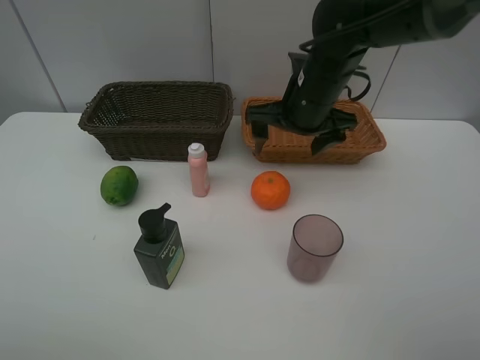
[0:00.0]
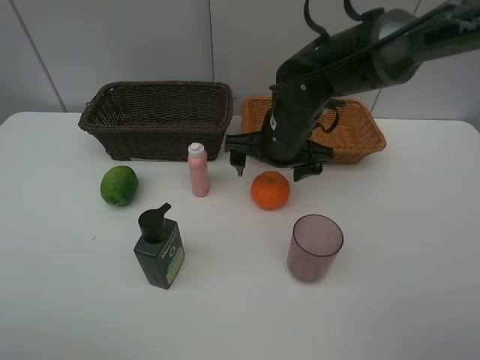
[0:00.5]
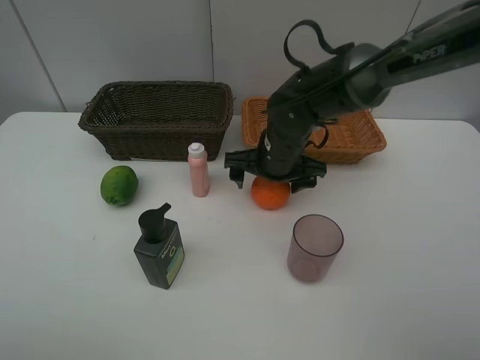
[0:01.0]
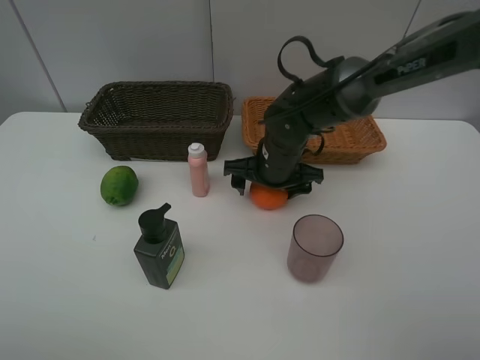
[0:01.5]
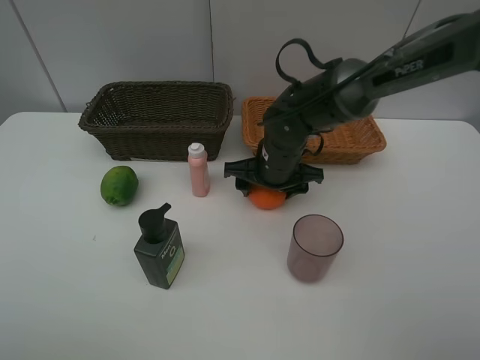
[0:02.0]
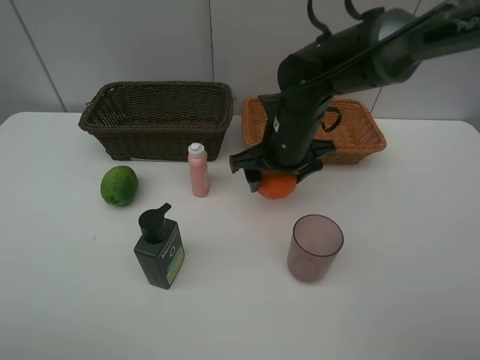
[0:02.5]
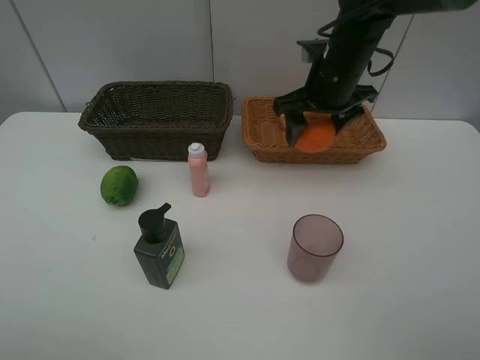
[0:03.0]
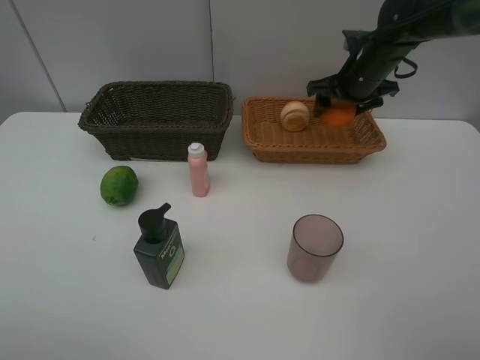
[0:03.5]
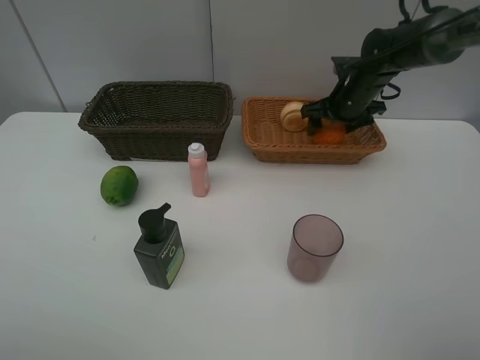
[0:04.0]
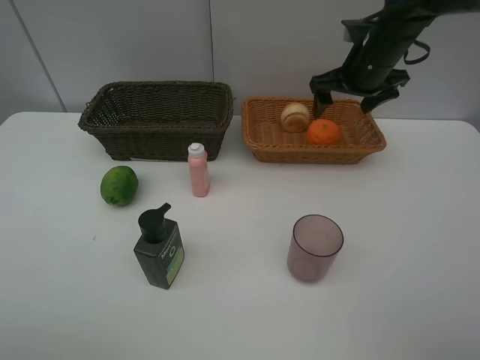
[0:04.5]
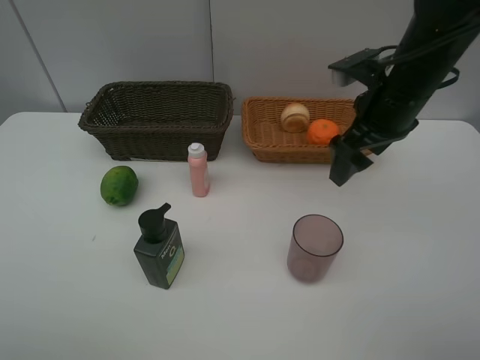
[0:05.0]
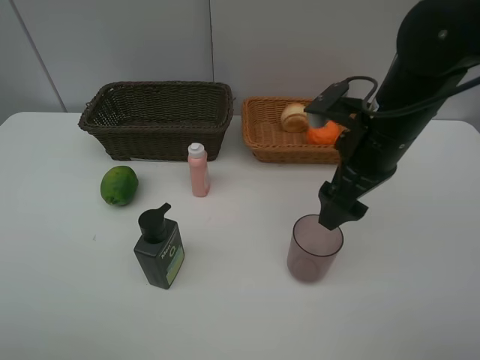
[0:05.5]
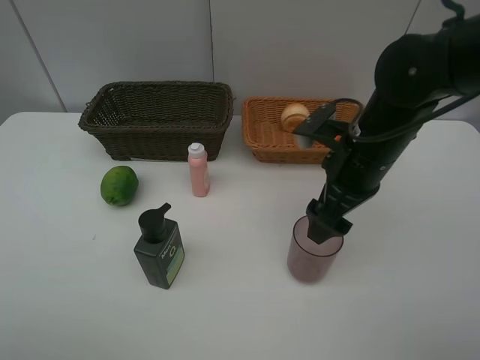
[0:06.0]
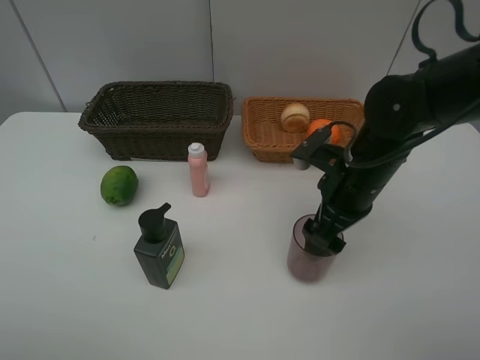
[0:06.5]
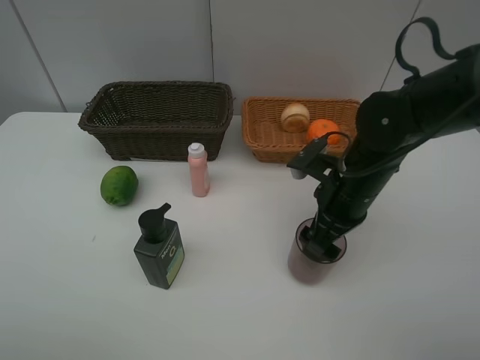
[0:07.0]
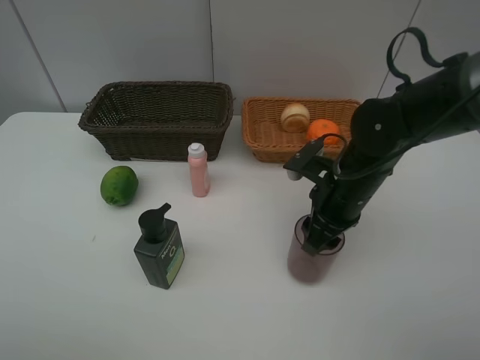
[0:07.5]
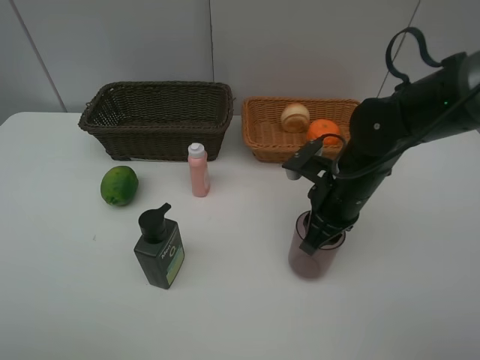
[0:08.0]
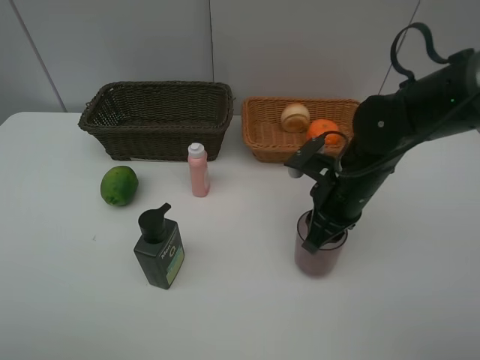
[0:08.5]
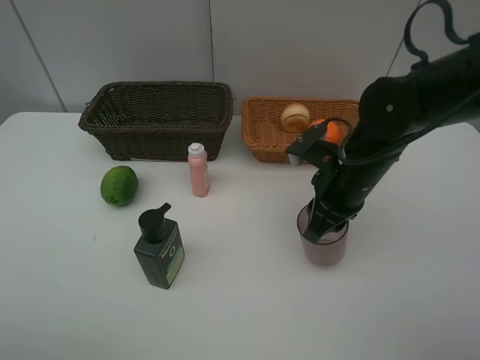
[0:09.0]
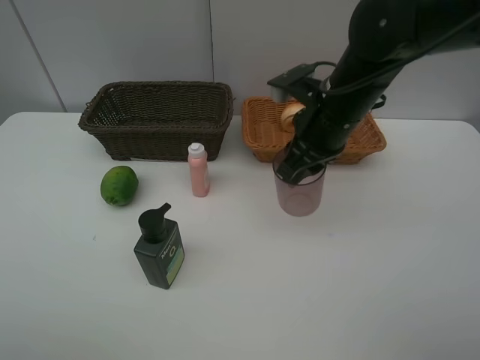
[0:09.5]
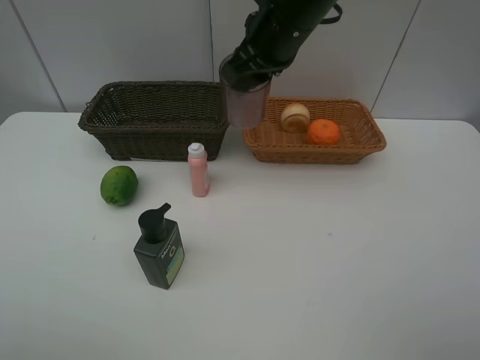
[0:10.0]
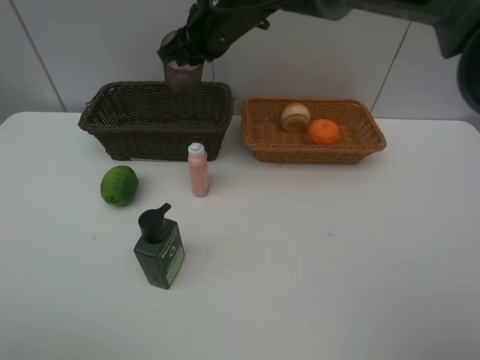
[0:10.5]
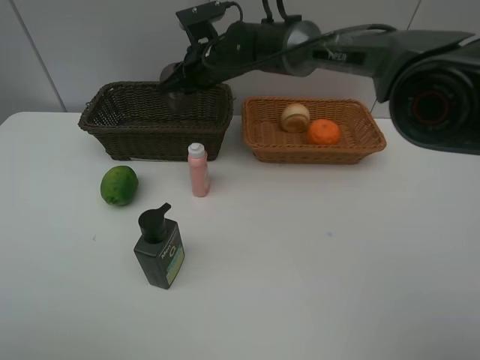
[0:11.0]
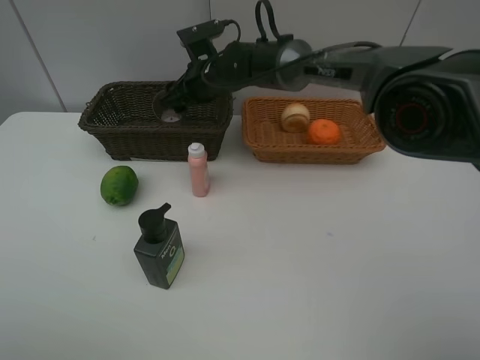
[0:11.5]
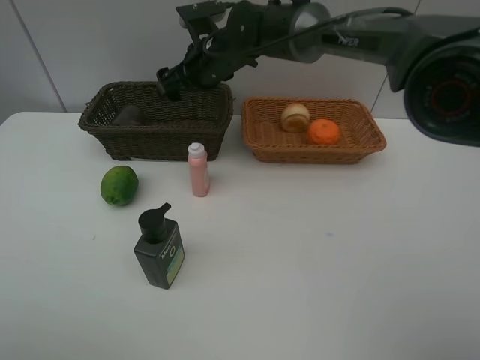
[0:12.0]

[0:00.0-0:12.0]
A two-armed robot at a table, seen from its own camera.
Task of the whole recording: place multiple objects separately in different baskets.
0.0 to 2.0 s: The right gripper goes some 10 cm downward.
2.0 to 4.0 s: The right gripper moves to the right and forward, some 20 cm.
4.0 to 6.0 s: The right gripper shifts about 20 cm backward.
6.0 to 8.0 s: The right gripper is displaced downward by about 5 cm, and closes its fingers.
8.0 to 10.0 s: The right gripper travels upward, forward and to the left by roughly 20 cm.
10.0 to 12.0 s: The right gripper heads downward, to the left and forward, covering approximately 15 cm, and opens up.

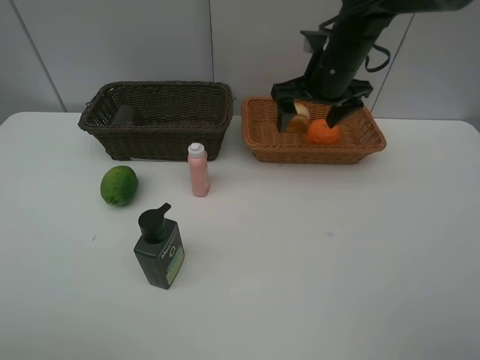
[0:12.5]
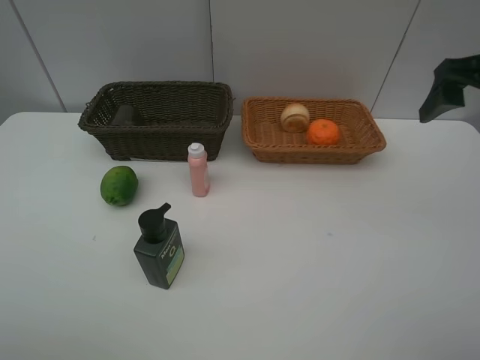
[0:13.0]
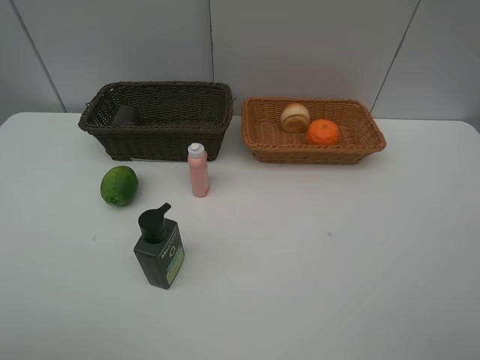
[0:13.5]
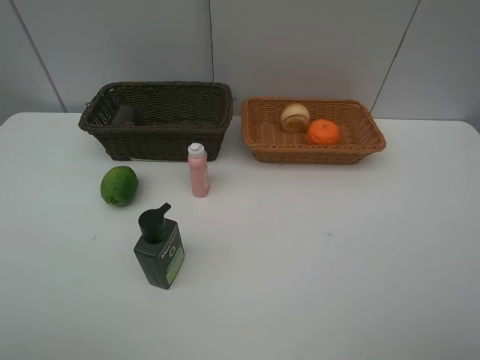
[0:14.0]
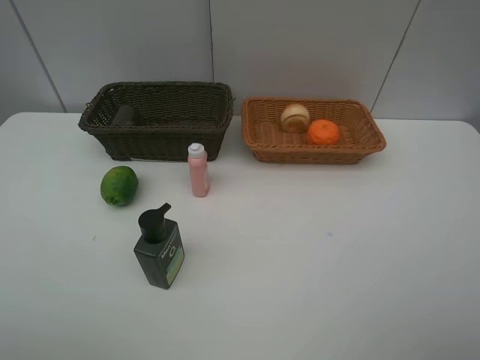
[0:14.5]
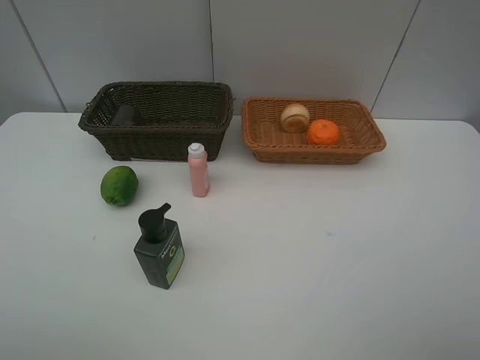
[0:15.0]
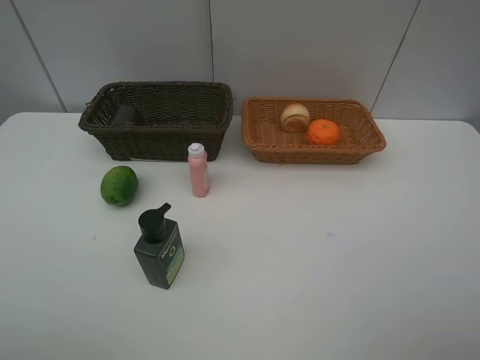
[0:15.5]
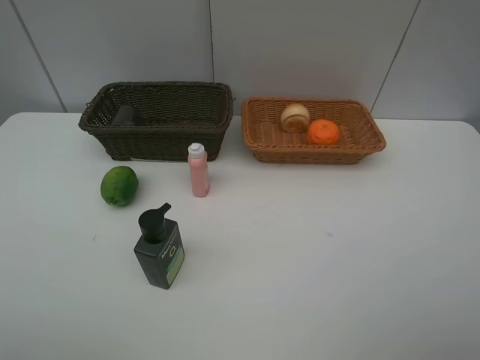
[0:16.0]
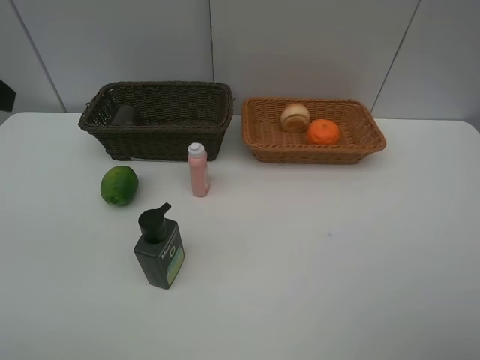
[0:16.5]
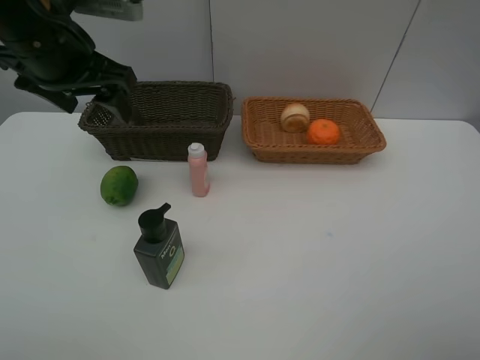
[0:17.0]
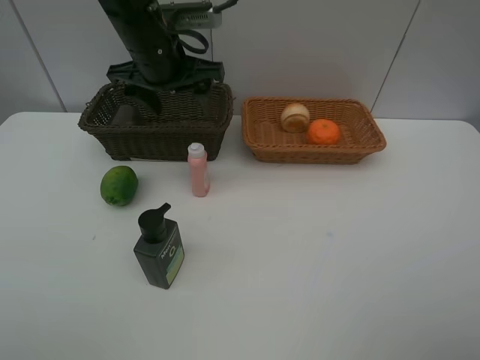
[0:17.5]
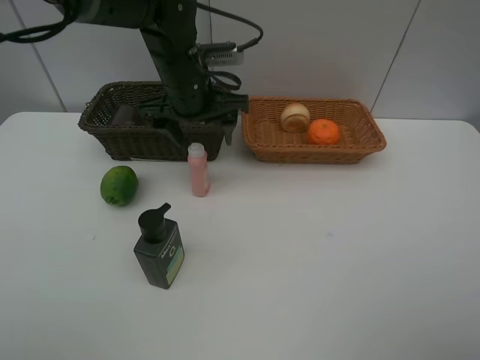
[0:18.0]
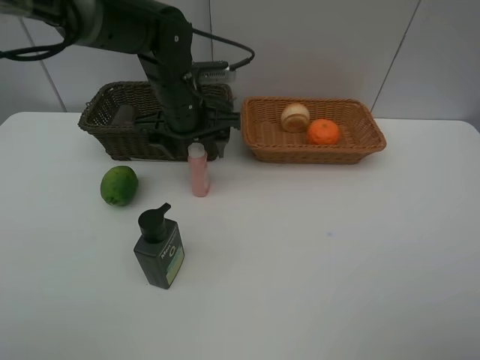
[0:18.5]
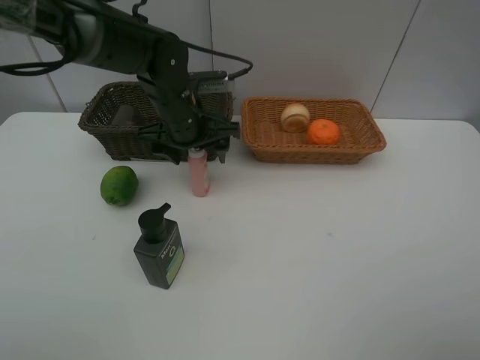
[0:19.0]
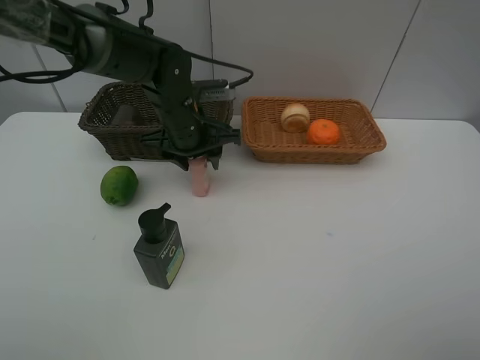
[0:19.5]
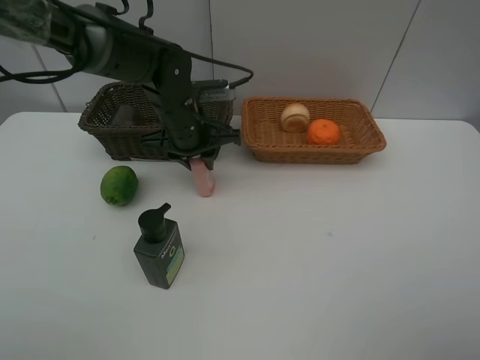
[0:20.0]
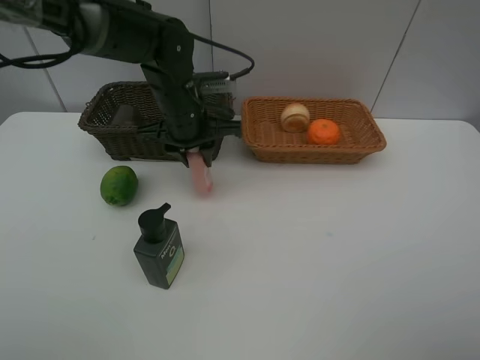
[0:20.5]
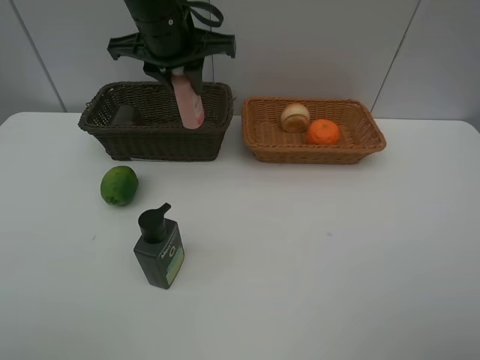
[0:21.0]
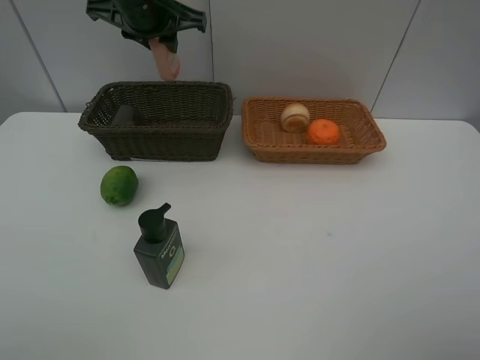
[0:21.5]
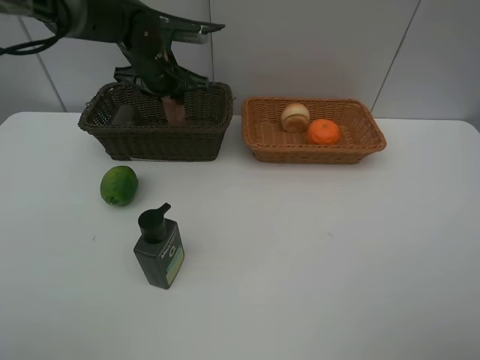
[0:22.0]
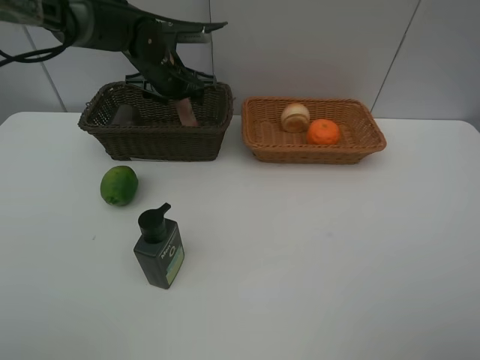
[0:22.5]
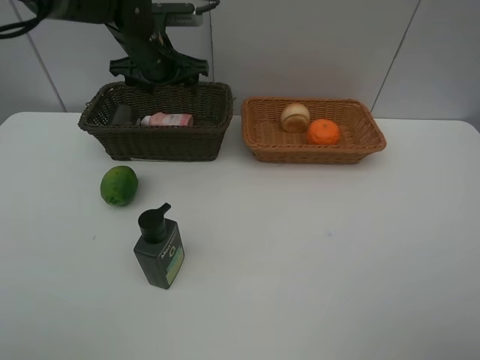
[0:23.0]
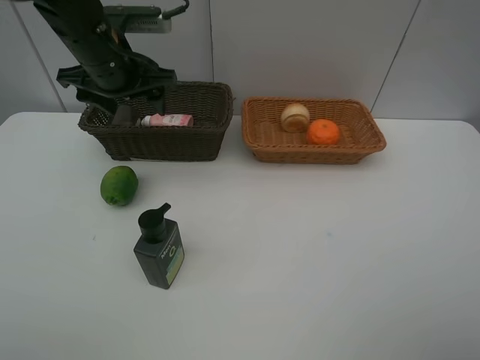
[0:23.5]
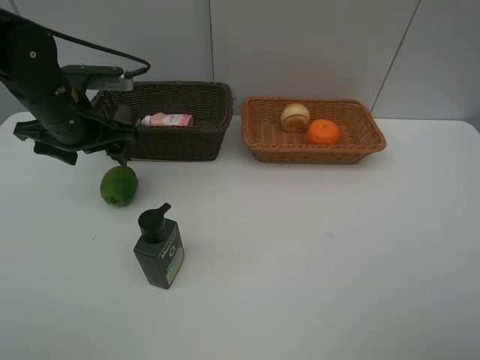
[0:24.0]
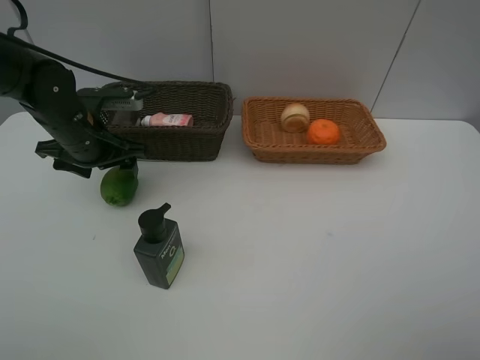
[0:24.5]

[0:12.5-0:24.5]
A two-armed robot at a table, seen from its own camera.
Task of the whole recording: place multiple objects separately in different baskets.
12.5 to 14.5 s: The right gripper shifts roughly 40 cm backward.
16.5 to 18.5 s: The left gripper moves to the right, forward and downward, about 30 cm.
18.5 to 20.5 s: The left gripper closes its fingers.
20.5 to 22.5 s: The left gripper goes approximately 10 cm forward, travels upward and back again, about 10 cm each way, and opens its fingers.
22.5 to 24.5 s: The left gripper goes roughly 15 cm backward and to the left.

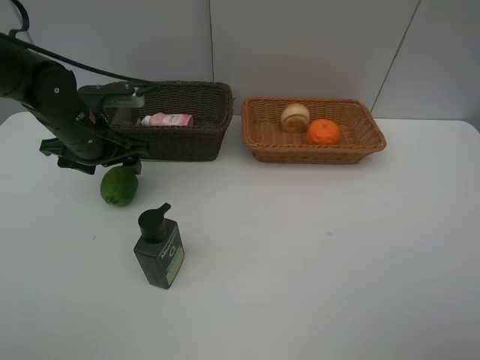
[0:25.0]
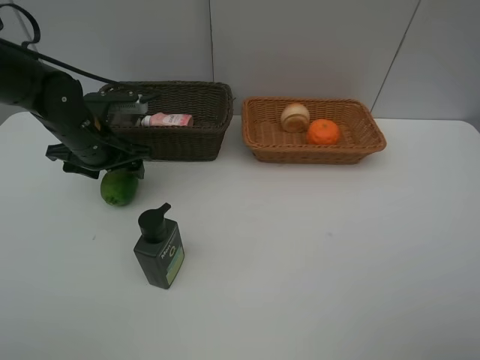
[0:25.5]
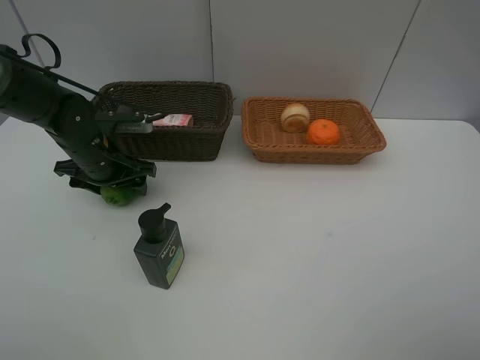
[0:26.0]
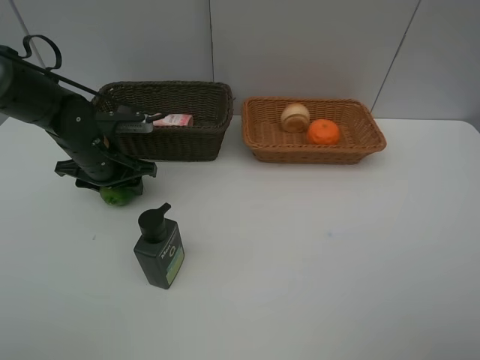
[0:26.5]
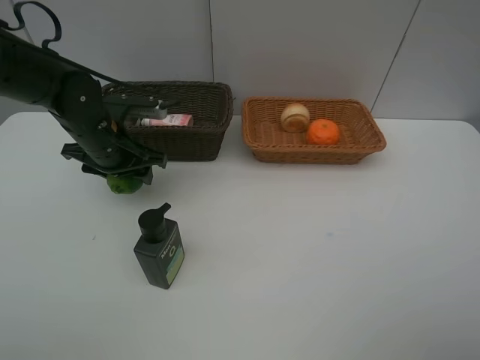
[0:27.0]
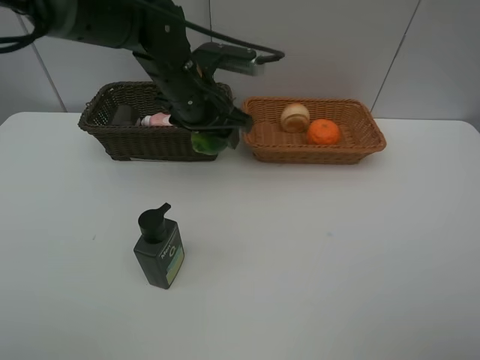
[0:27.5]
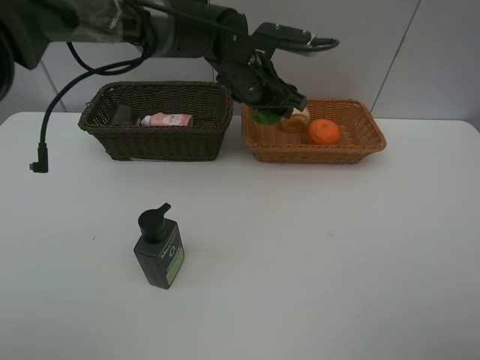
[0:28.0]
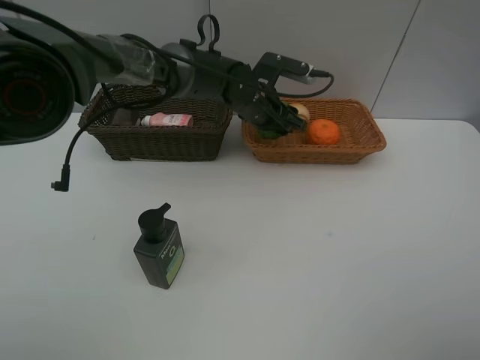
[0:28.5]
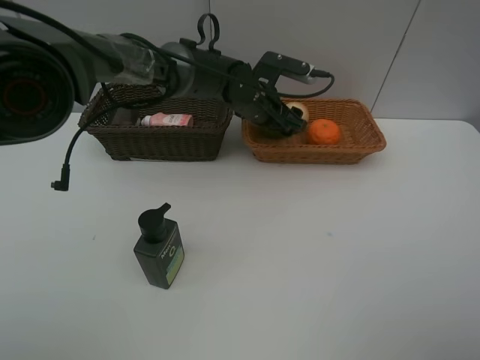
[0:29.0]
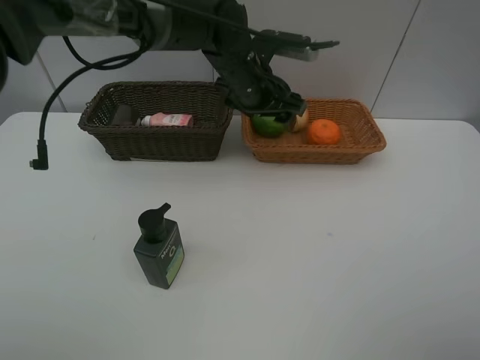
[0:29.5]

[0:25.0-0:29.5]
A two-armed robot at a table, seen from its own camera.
Task of the whole recording: place multiple objects separately in different baskets.
25.0 to 27.0 s: The left gripper closes.
27.0 to 29.5 s: The left gripper is displaced to the right by approximately 20 cm, and opens its fingers.
